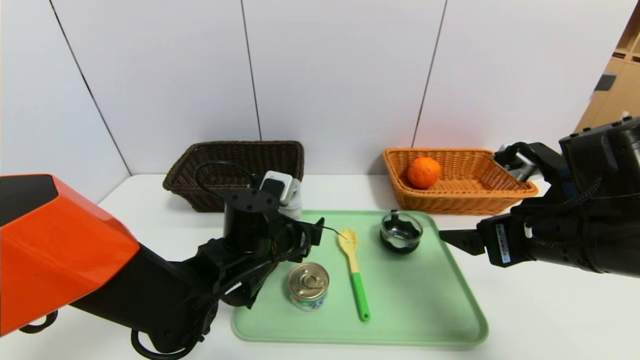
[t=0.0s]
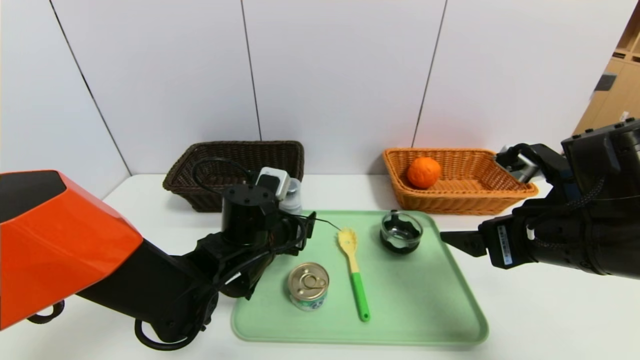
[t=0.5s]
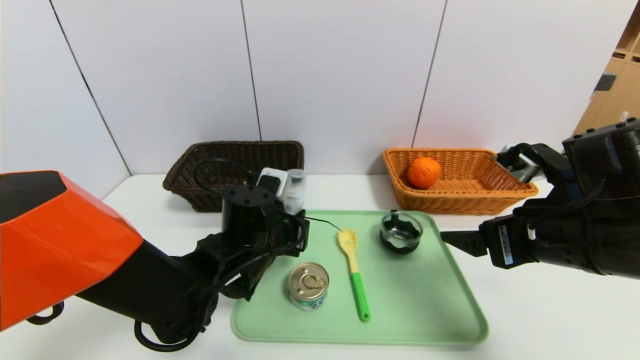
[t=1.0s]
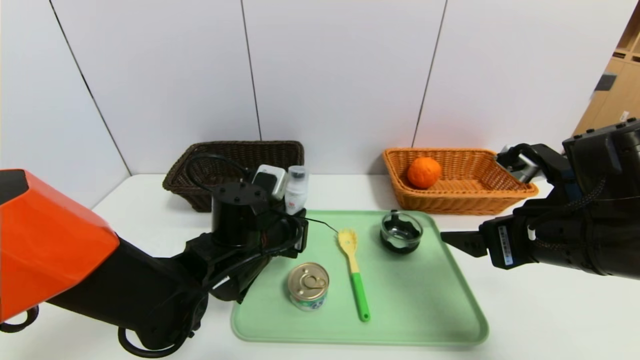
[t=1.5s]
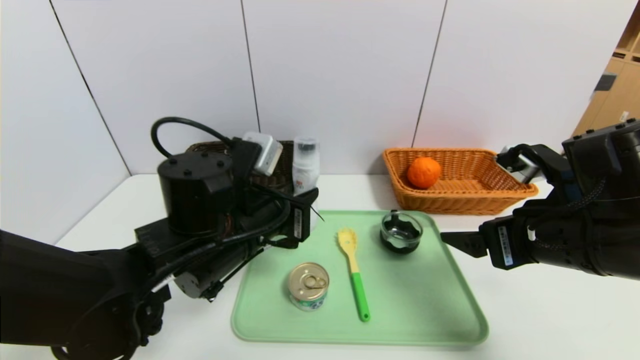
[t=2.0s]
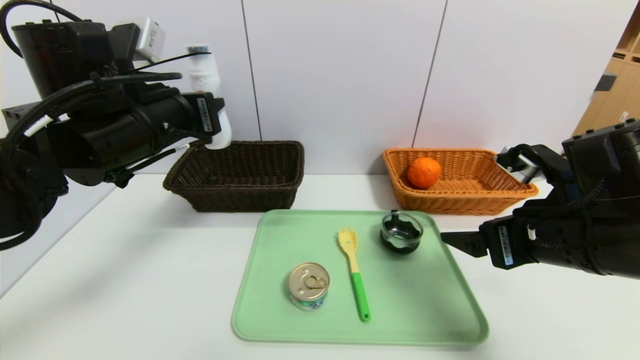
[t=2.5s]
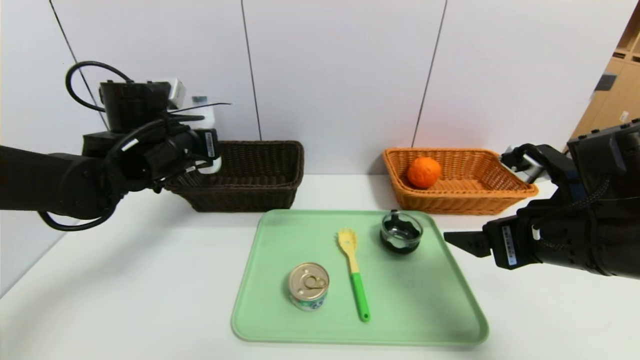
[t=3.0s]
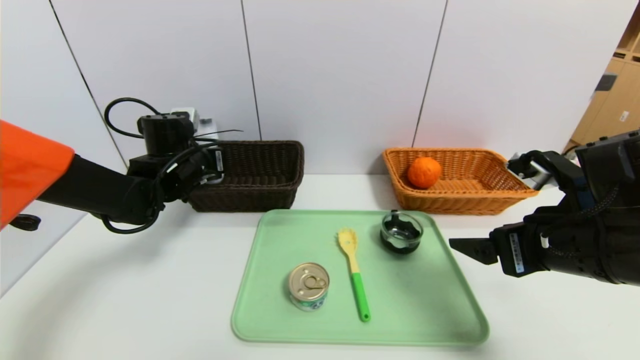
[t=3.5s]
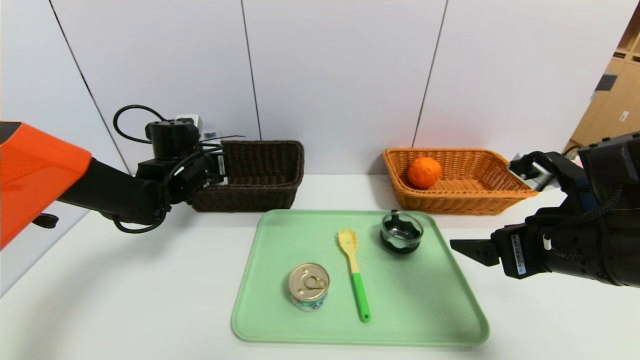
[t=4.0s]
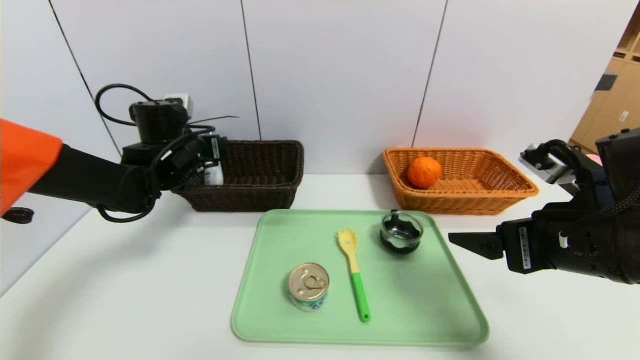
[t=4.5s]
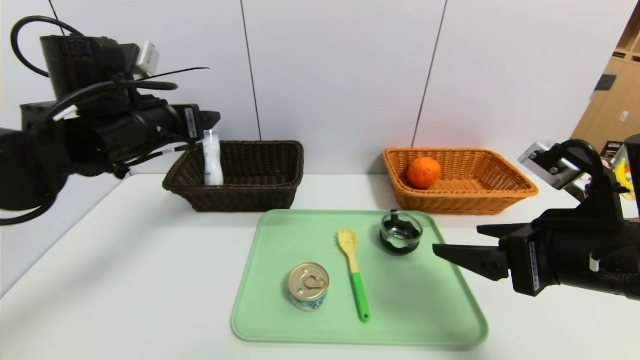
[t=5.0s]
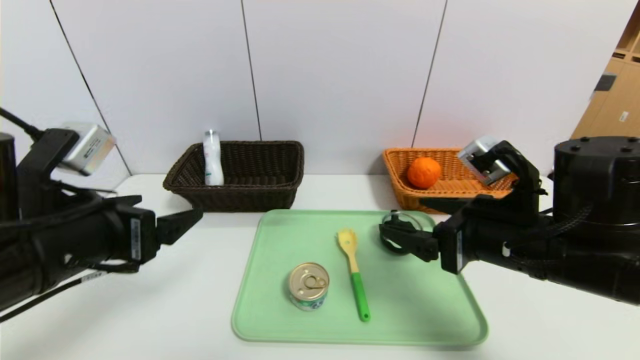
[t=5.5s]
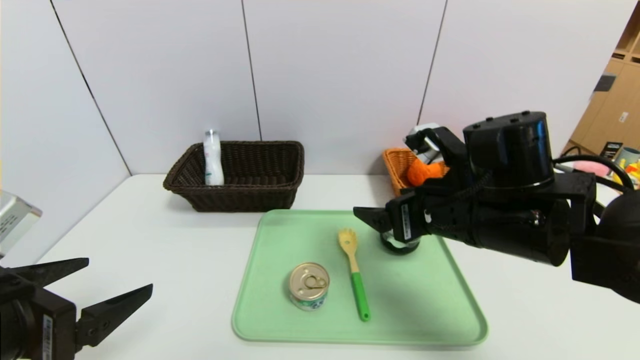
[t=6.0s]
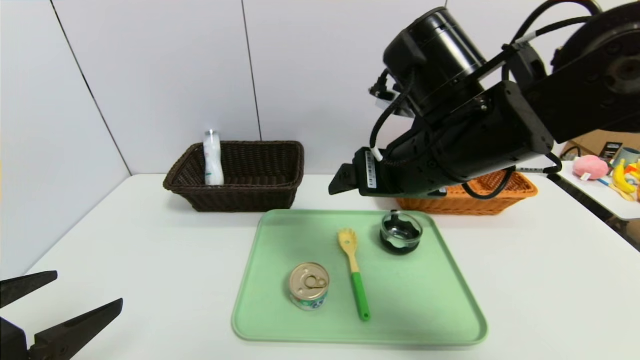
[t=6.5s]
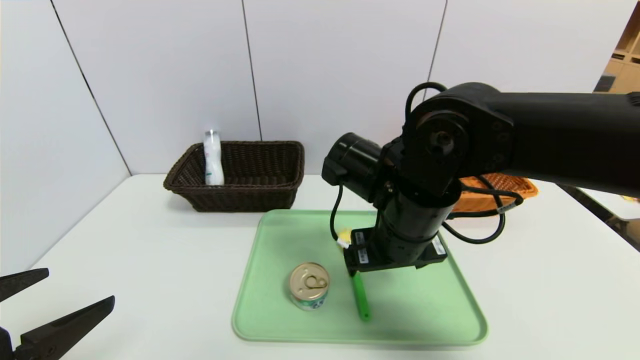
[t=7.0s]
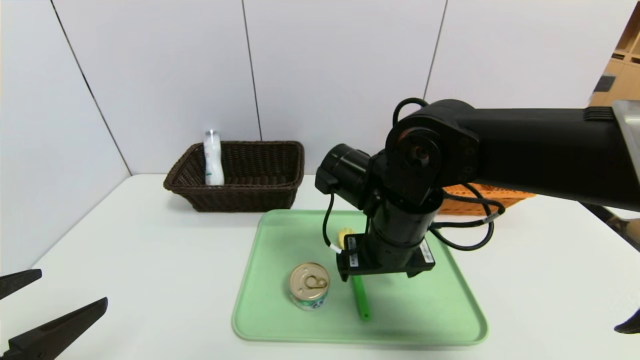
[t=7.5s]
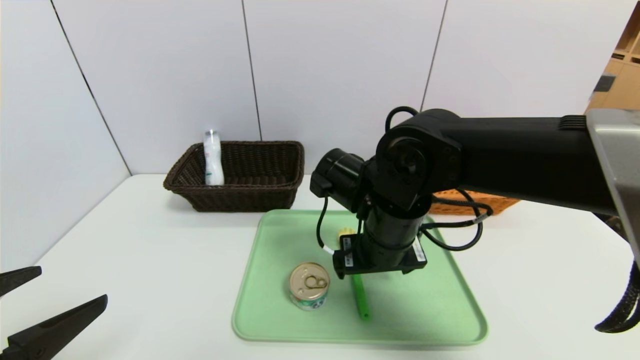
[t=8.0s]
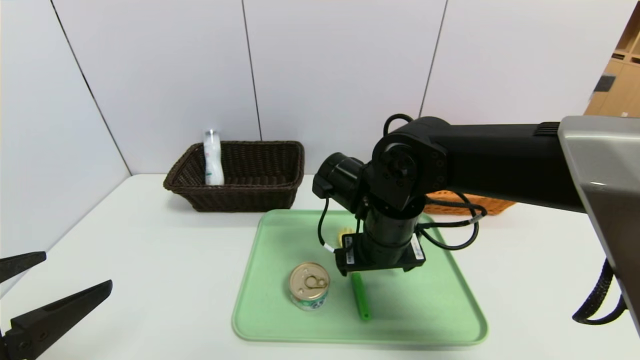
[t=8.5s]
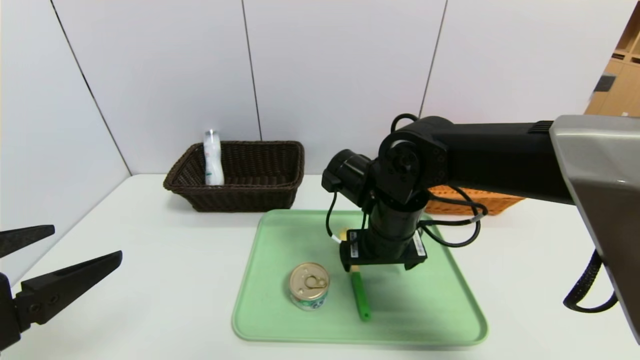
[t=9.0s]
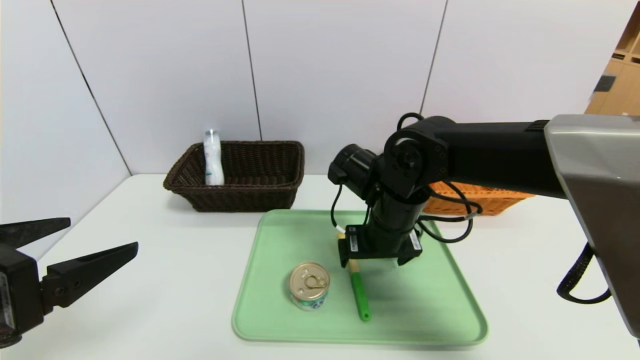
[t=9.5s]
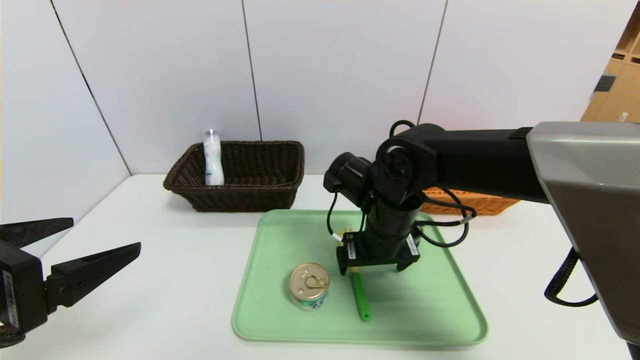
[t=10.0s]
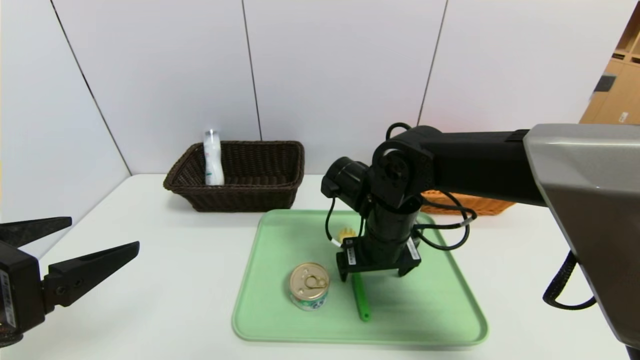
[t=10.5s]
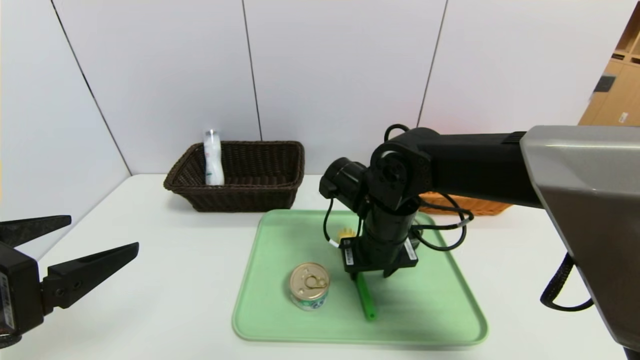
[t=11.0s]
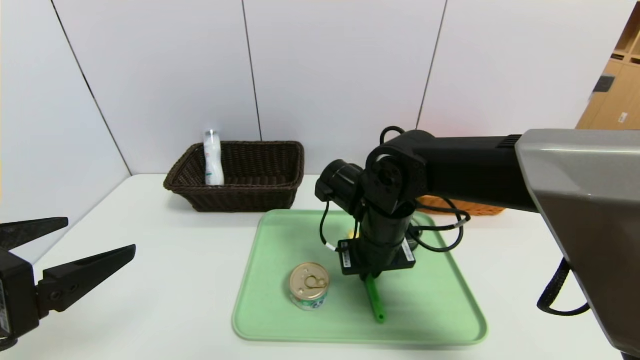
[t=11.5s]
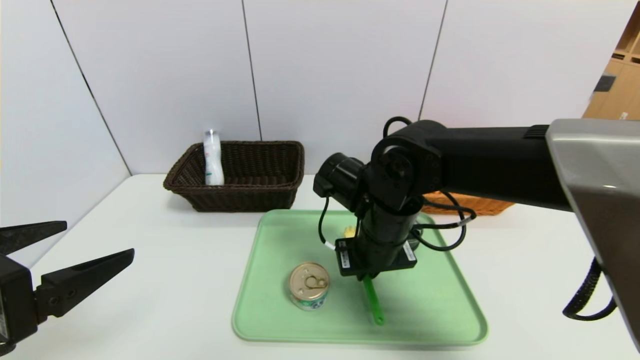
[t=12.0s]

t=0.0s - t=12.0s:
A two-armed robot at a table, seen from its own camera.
Task of the whole recording: place the food in the right basket with the right gripper, and place the non food items in the left basket with the left gripper.
Step, t=0.0s - t=5.0s: Grasp the washing liquid and put it in the left basket.
t=0.0s - t=2.0s: The left gripper moves upward, approximately 5 cm, and closes its fingers.
t=2.0s - t=4.0s: The left gripper is displaced forward and to the left by roughly 20 cm.
t=4.0s - t=6.0s: The left gripper goes some 30 cm backward, and opens its fingers. Meanwhile the right gripper heads to the left, covering roughly 10 cm.
t=6.0s - t=8.0s: The right gripper travels to the left by roughly 10 cm, and goes upward and returns, about 5 cm each way.
t=8.0s - t=10.0s: The left gripper changes place by some 5 cm.
t=10.0s - t=12.0s: The right gripper closes.

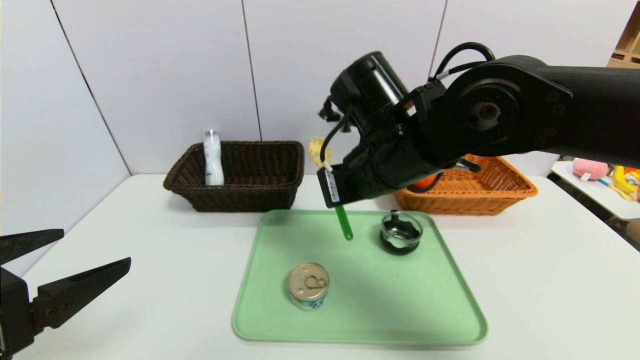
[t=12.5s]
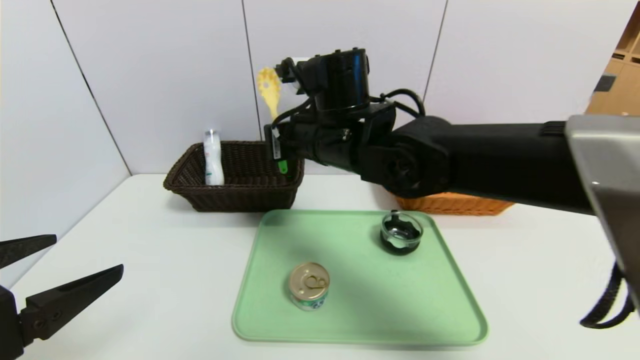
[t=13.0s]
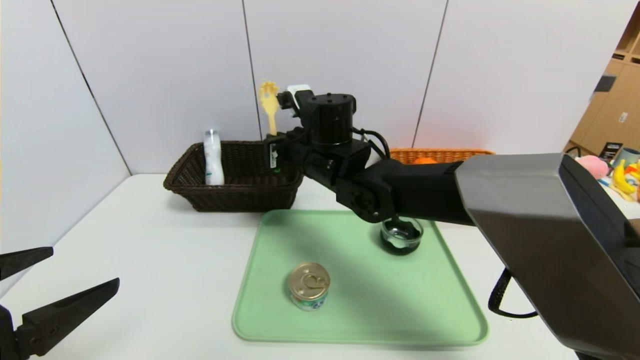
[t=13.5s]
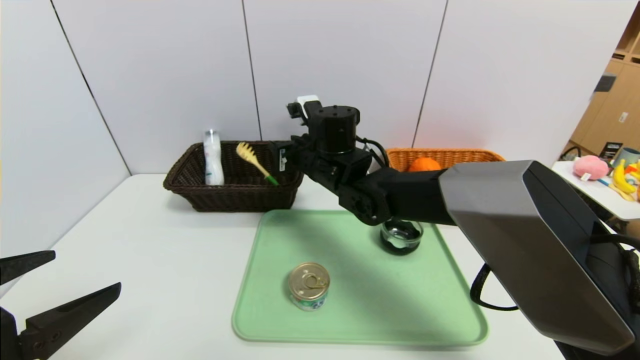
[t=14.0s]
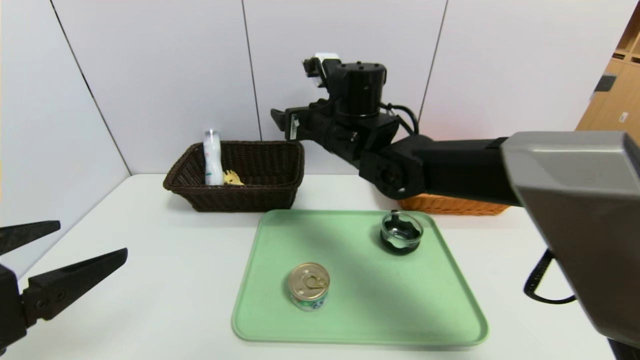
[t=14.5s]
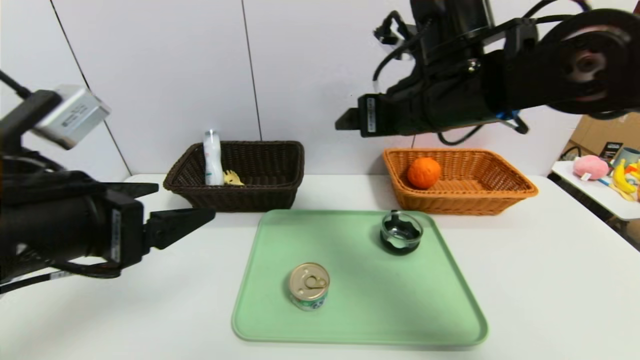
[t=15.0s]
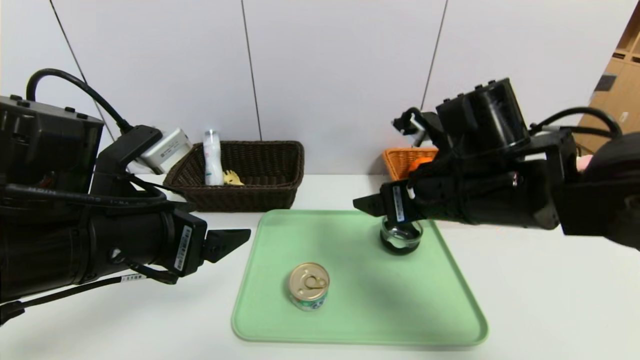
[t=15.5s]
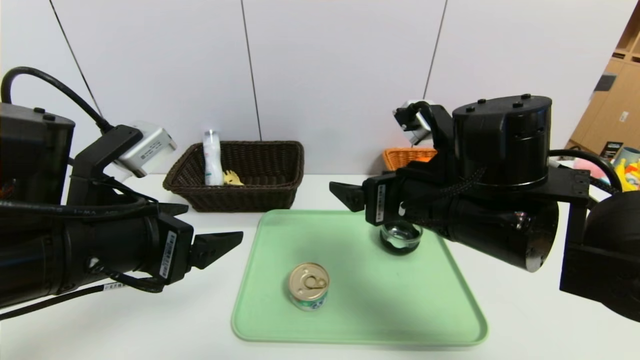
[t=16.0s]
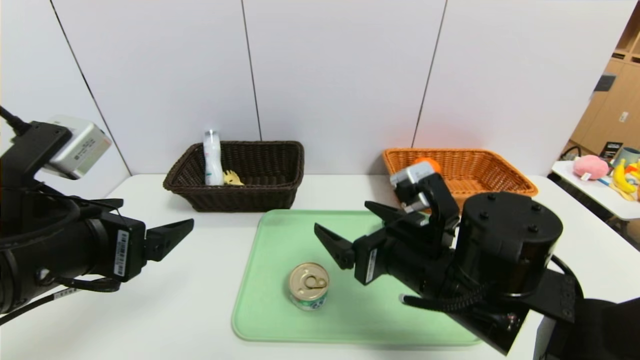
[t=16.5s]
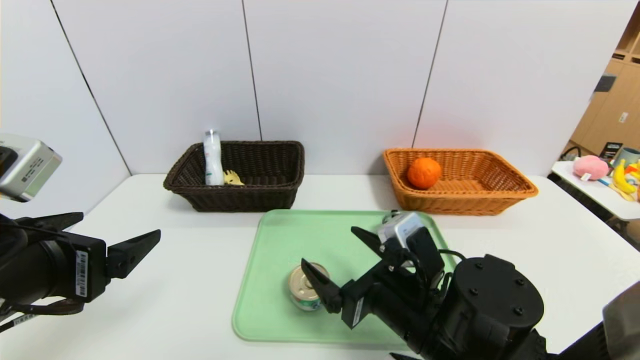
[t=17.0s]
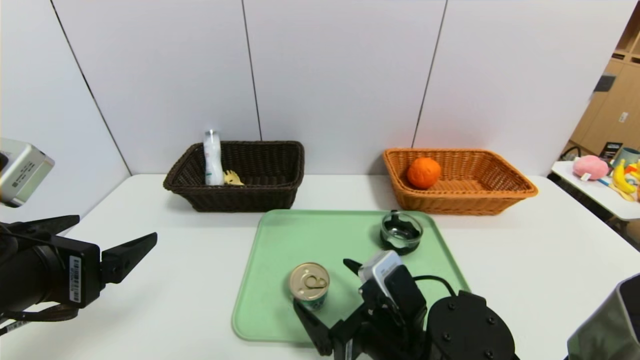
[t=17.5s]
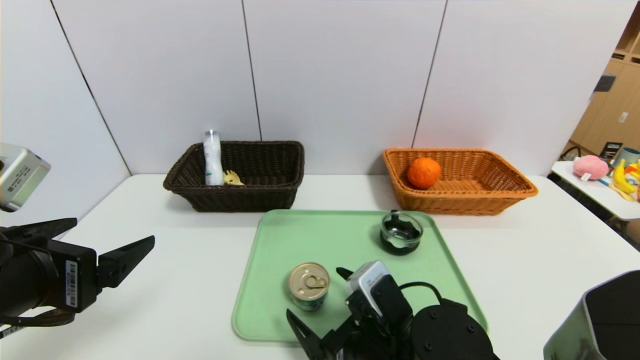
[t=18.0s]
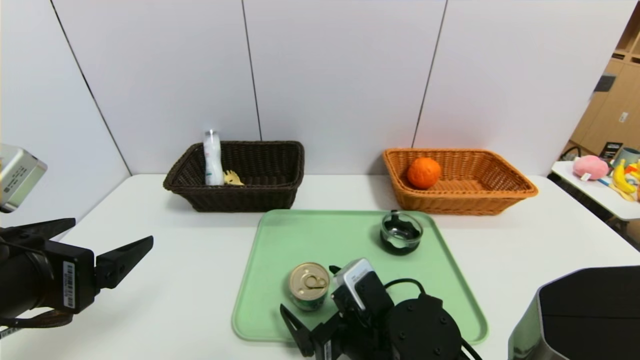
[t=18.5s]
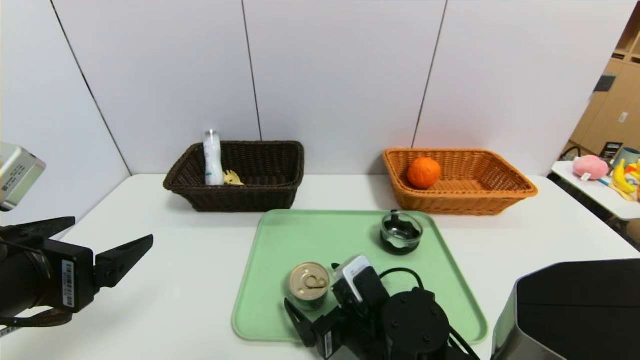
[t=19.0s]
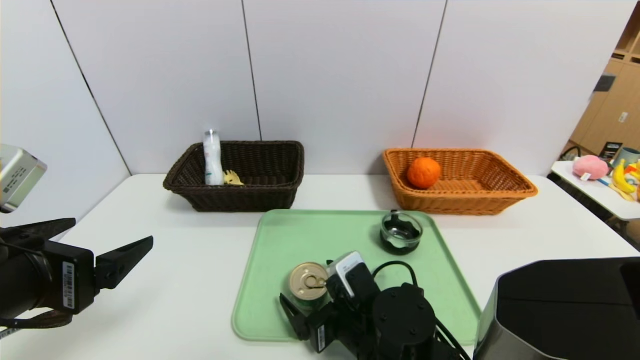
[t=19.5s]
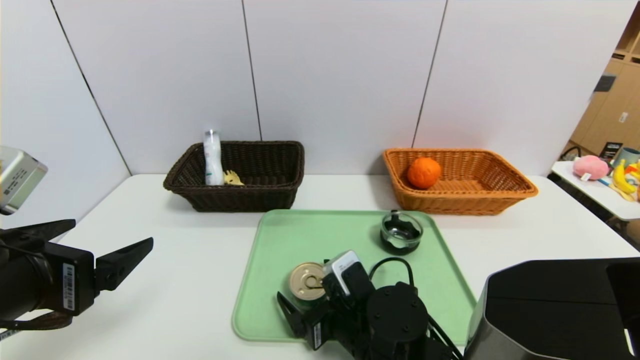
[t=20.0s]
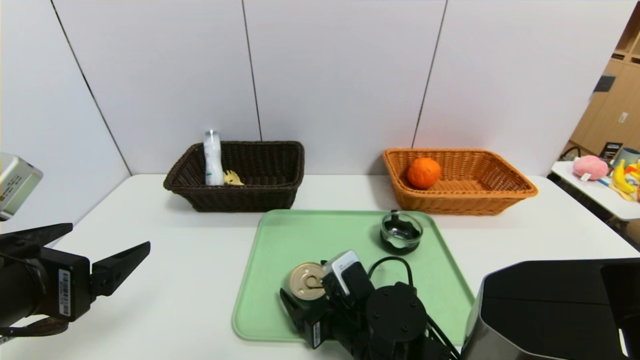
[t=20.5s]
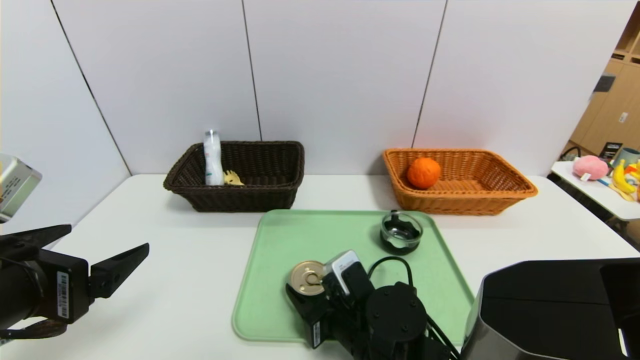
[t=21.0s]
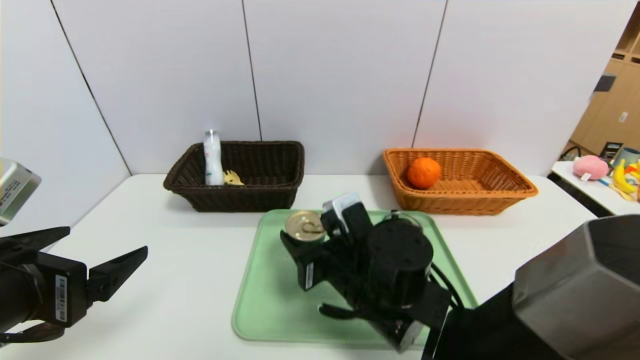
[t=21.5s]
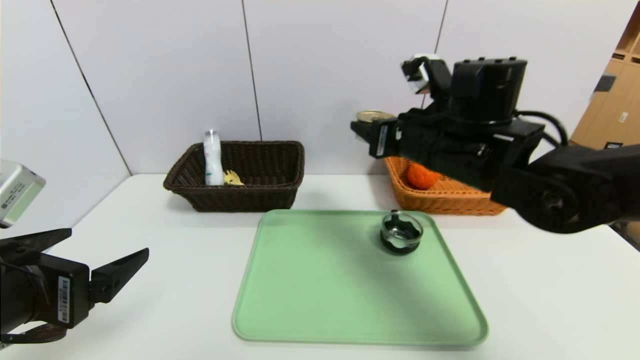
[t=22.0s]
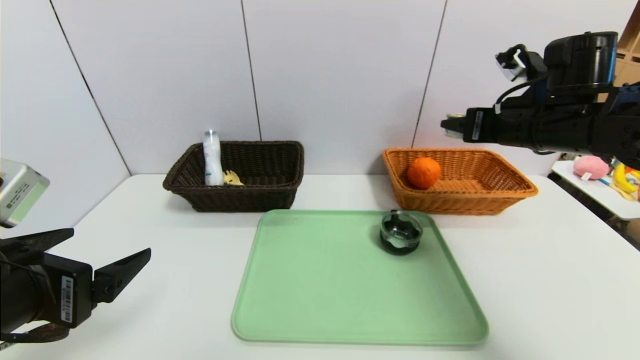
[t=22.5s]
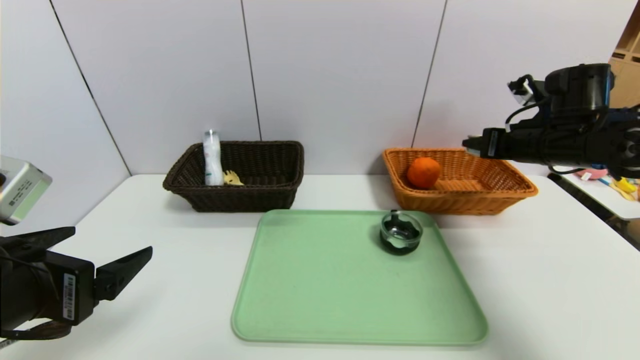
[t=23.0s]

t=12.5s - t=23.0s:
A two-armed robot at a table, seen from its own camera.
Task of the whole recording: place the food in the right basket with the right gripper, and place the non food items in the left basket with the left gripper.
Step, t=12.5s - t=14.5s: Grasp the back scratcher and put it in the left basket.
t=12.5s - t=14.5s: The right gripper shifts some 10 cm forward, and opens its fingers.
t=14.5s - t=16.5s: The right gripper heads backward, to the right and downward, covering about 20 cm. Meanwhile the left gripper is displaced forward by approximately 5 cm.
t=16.5s - t=19.0s: The right gripper goes about 10 cm downward.
t=19.0s - t=21.0s: The right gripper closes.
t=21.0s - t=23.0s: The right gripper moves to the right, upward and forward, some 35 cm.
